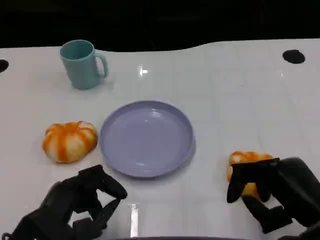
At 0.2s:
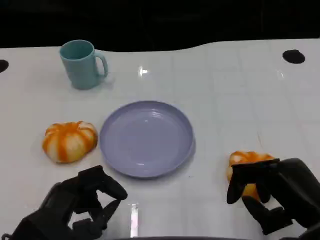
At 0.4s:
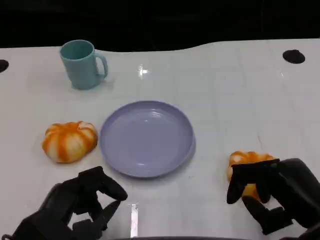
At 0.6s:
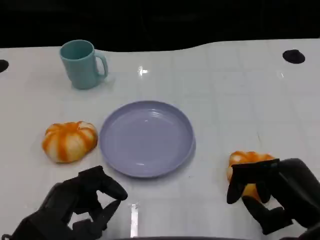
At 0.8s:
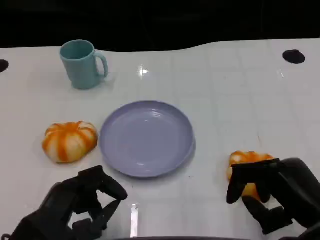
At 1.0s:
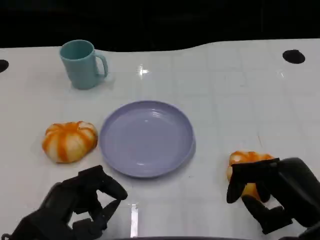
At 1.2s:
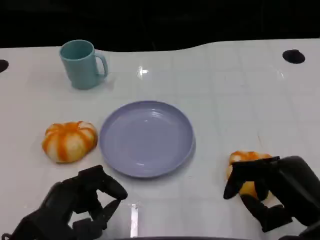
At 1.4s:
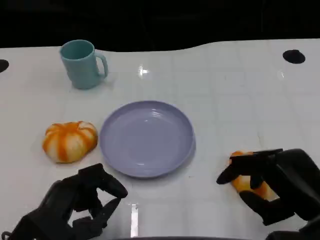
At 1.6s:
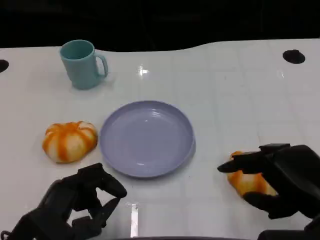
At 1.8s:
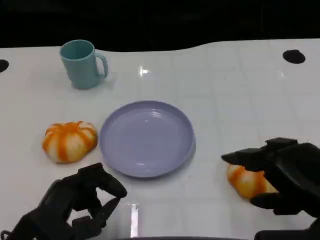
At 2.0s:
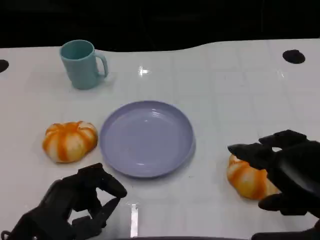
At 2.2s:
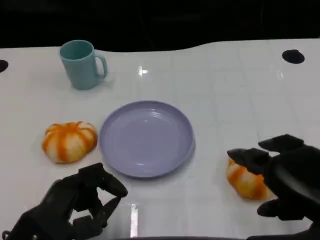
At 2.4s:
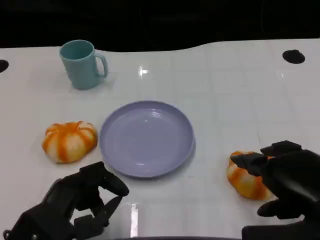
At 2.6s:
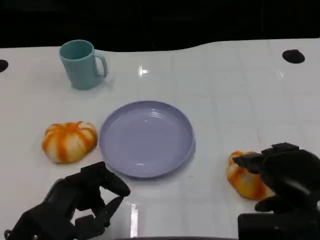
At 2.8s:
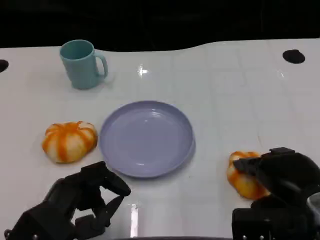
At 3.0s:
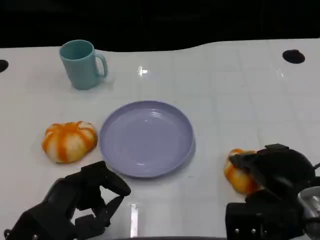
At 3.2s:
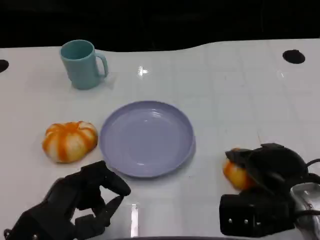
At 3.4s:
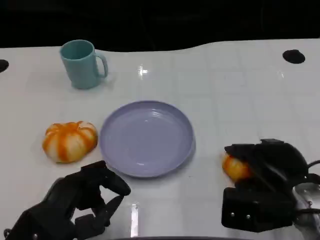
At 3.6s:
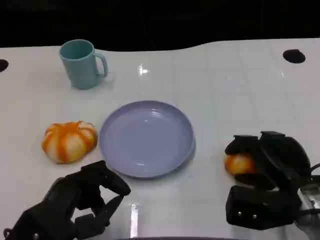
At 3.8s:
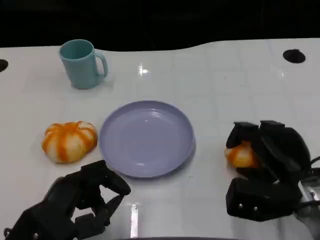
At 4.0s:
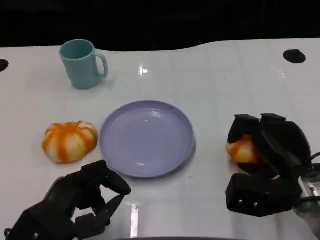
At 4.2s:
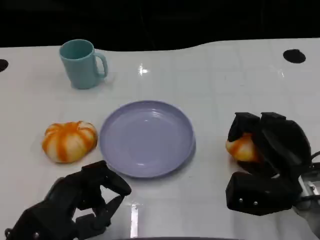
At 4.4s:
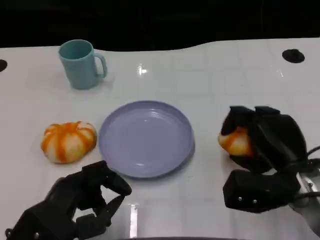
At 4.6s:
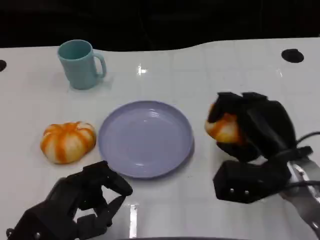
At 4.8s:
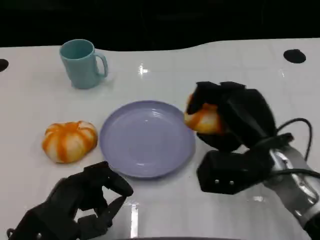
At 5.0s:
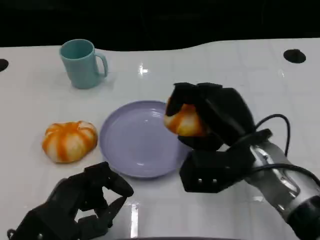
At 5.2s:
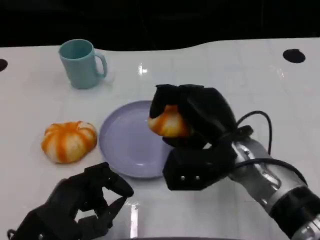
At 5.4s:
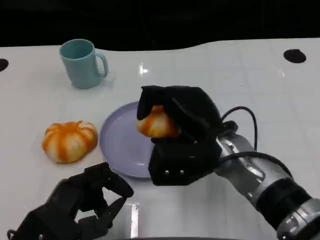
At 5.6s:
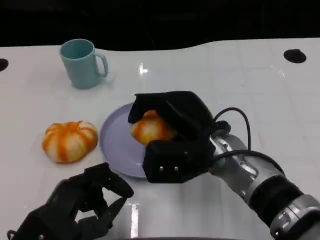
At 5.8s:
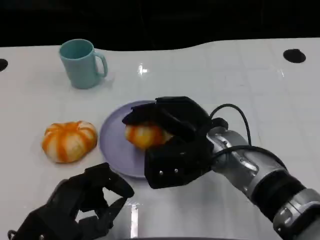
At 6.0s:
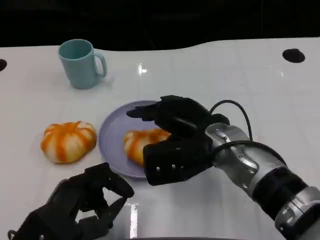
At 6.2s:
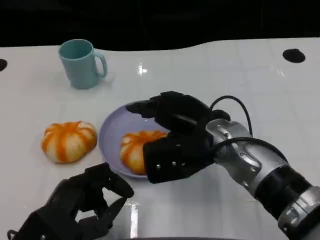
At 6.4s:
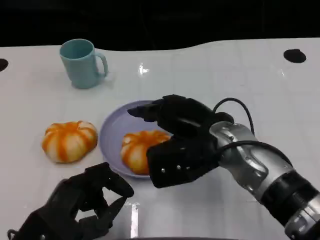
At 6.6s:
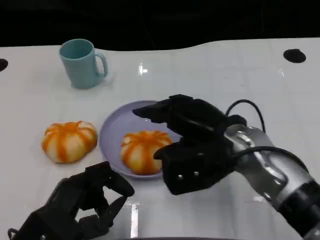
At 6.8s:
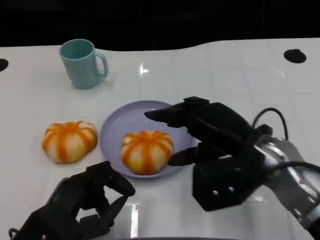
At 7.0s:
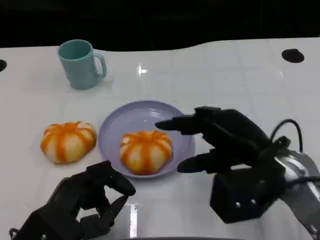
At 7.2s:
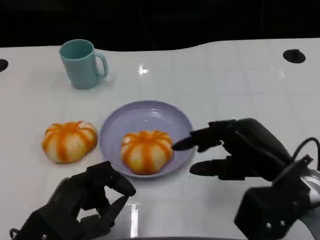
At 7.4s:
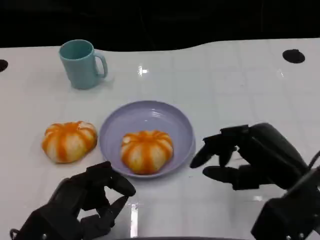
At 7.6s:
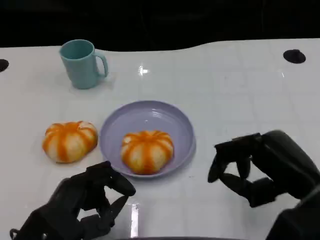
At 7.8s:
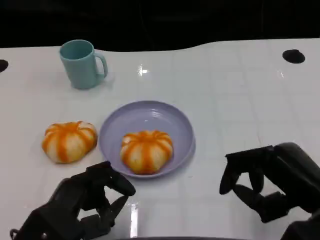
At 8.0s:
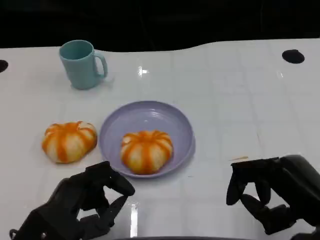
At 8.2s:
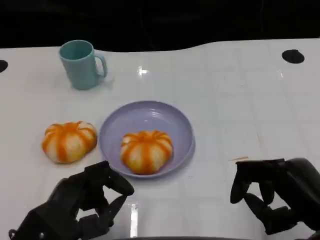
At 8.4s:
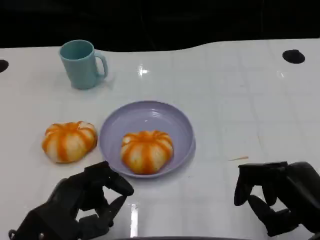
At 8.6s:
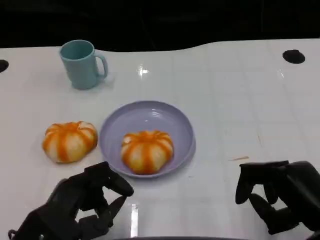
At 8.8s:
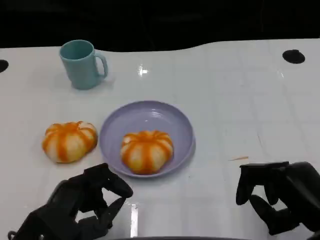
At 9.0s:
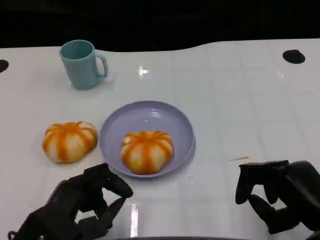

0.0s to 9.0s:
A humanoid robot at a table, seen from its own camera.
Task of the whole recording: Grasp the bread from the table and place it into the plate.
0.0s to 1.6s: The hands make only small movements.
1.6s to 3.0s: The right hand moves forward, approximately 5 cm.
4.4s to 6.0s: The right hand travels to the left by some 10 cm.
6.0s to 7.6s: The right hand travels to the right and backward by roughly 15 cm.
7.6s to 9.0s: The right hand changes place by approximately 5 cm.

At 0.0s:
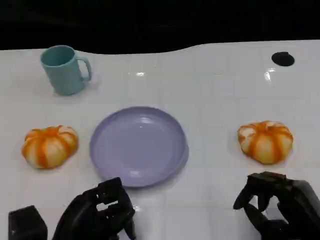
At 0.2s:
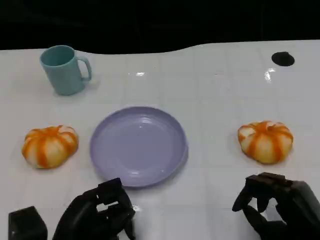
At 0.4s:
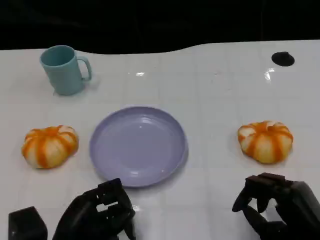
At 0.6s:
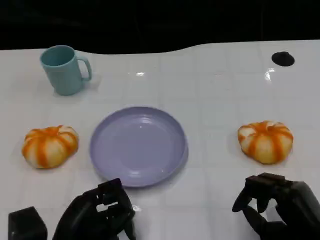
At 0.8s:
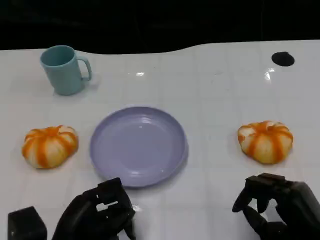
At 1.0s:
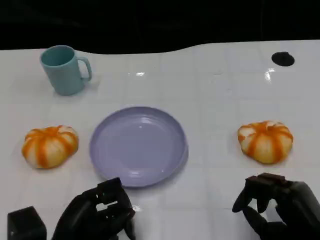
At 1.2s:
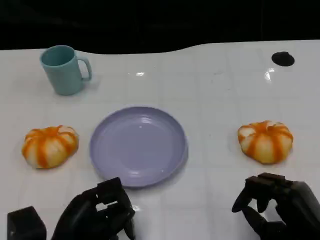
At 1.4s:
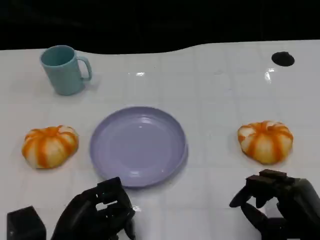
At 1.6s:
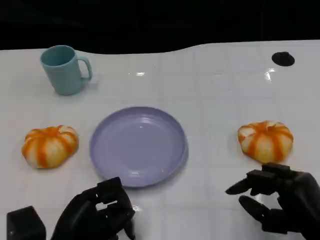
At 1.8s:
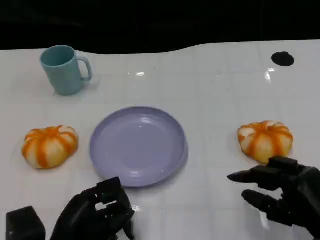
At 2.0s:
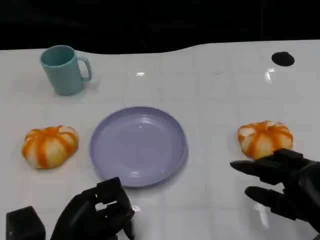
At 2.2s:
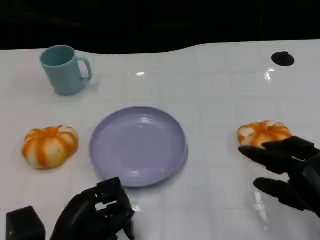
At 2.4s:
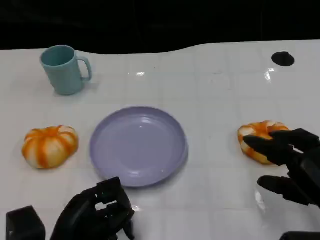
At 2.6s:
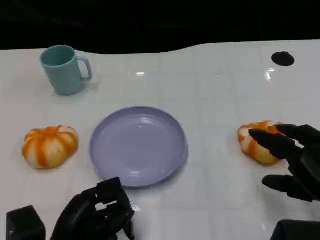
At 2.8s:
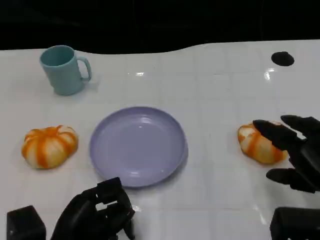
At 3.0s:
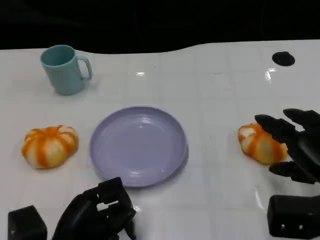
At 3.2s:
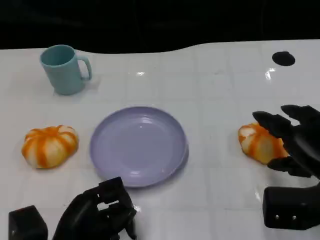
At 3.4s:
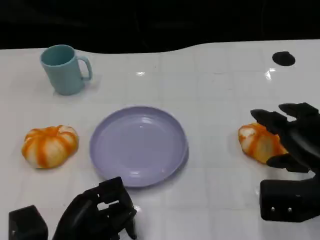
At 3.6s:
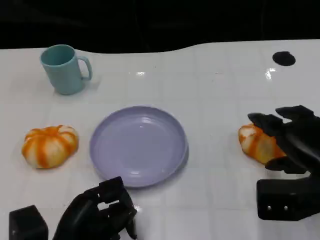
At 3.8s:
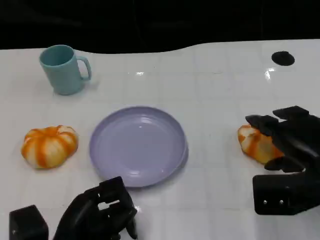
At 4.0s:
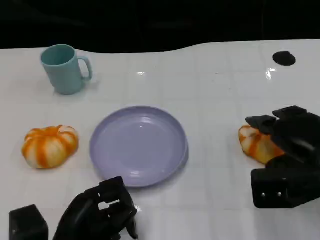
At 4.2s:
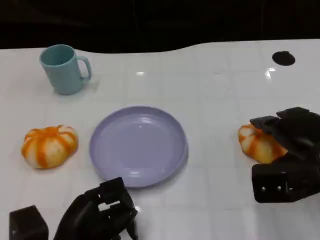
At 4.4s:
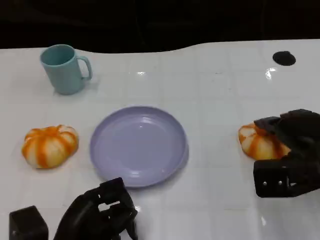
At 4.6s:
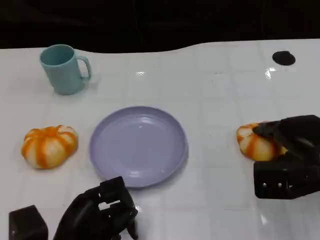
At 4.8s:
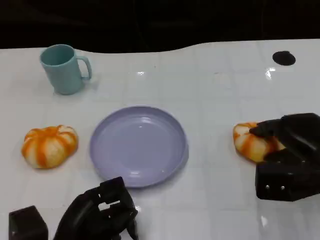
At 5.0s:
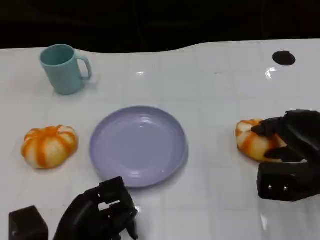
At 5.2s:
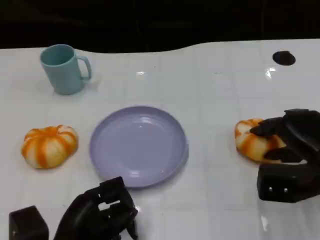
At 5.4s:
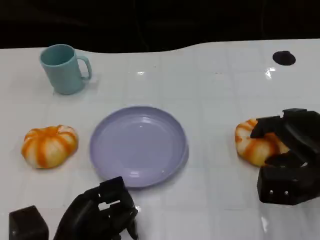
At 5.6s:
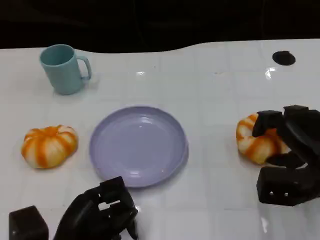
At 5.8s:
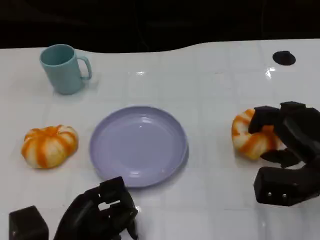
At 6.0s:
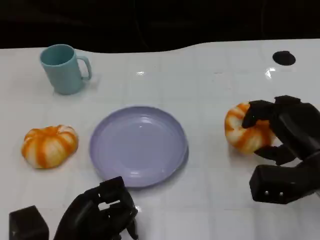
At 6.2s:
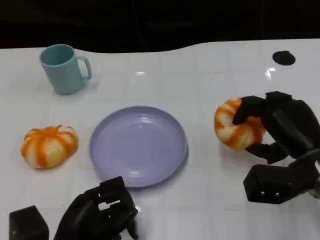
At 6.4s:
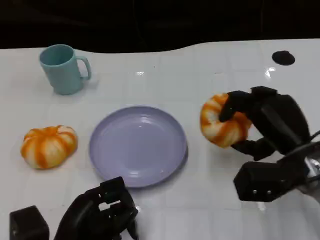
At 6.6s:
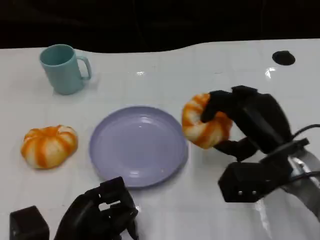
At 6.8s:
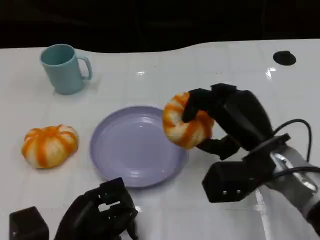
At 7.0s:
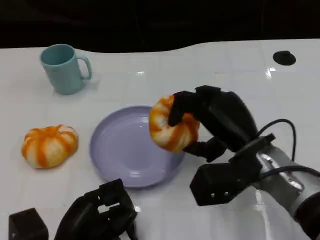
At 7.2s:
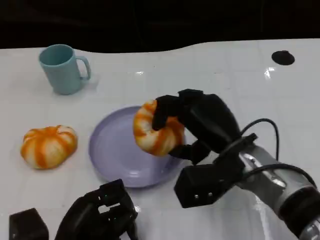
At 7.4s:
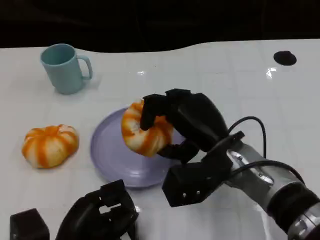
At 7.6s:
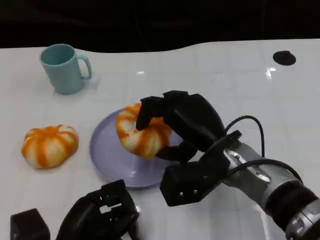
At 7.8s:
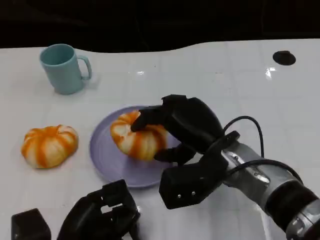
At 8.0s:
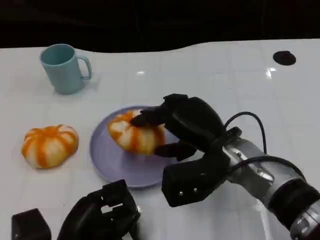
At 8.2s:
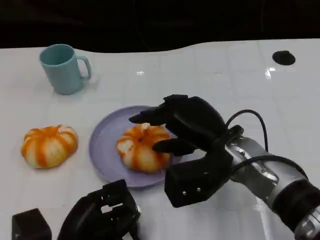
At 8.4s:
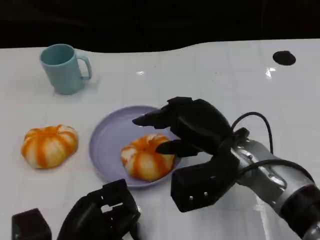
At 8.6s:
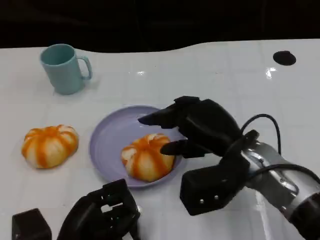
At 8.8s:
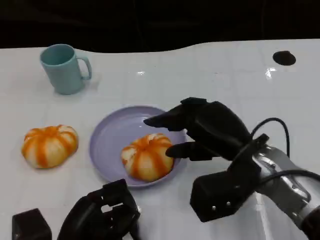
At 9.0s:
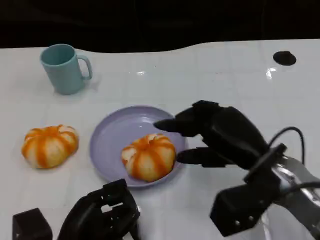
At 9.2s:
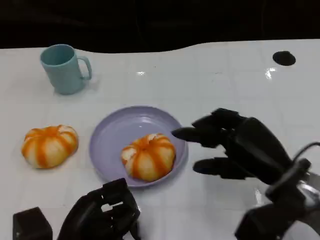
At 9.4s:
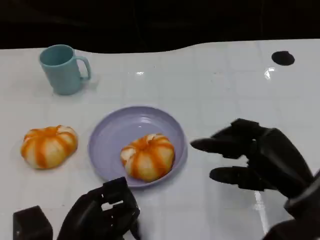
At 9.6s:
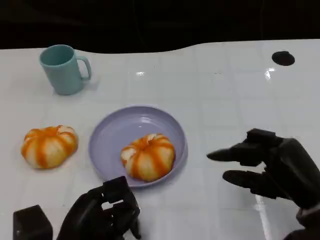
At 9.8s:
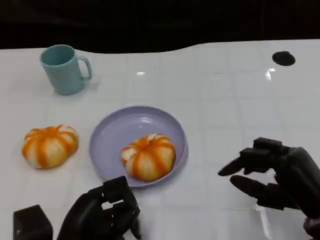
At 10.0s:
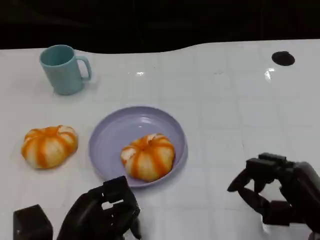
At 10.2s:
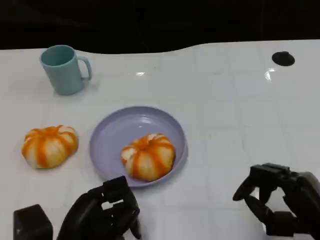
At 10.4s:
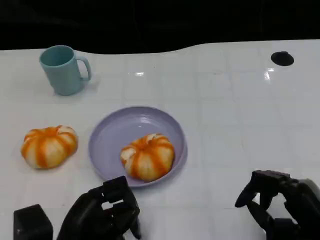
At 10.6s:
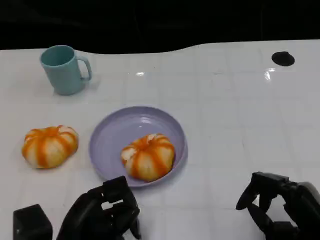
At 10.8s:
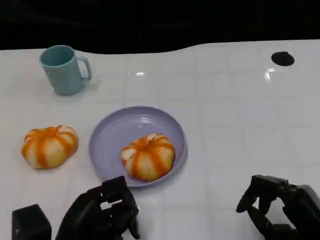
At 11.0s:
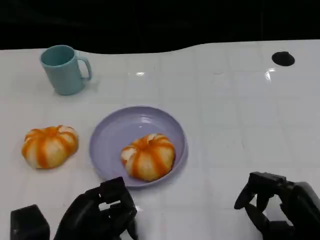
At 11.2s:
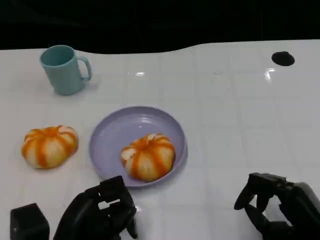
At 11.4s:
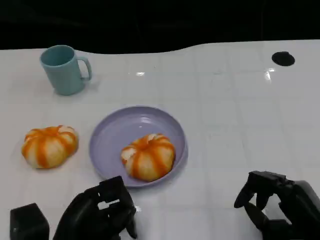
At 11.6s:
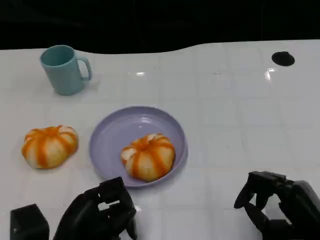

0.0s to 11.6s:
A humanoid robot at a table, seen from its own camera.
Task of the whole recording: Grasp the bread from the table and place it into the plate.
0.0s to 1.4s: The two hands keep their place.
1.4s to 2.8s: The right hand goes approximately 5 cm upward.
2.8s to 4.4s: The right hand travels forward by roughly 5 cm.
5.8s to 7.2s: The right hand moves to the left, roughly 15 cm.
7.2s to 8.8s: The hands stay close to where they were, moving slightly.
8.8s to 10.2s: The right hand goes roughly 15 cm to the right, backward and downward.
10.2s to 11.6s: The hands stay close to where they were, moving slightly.

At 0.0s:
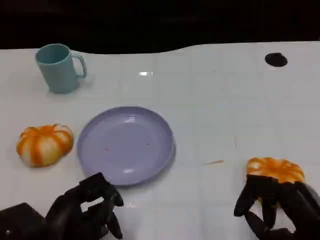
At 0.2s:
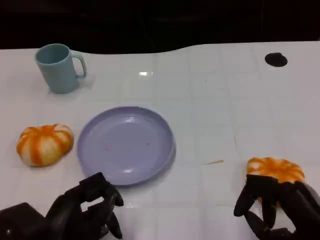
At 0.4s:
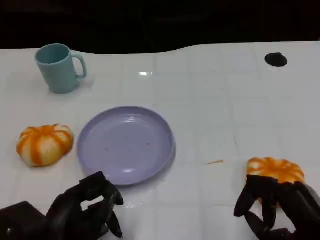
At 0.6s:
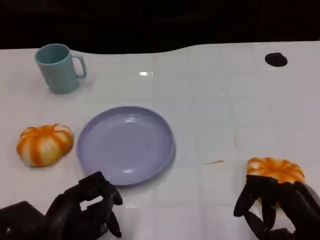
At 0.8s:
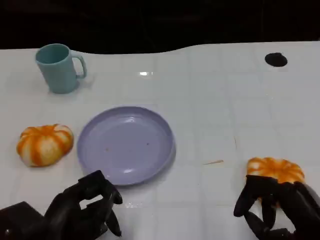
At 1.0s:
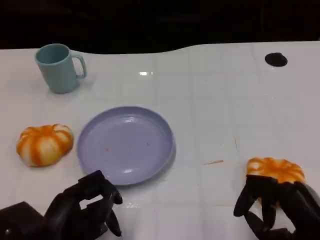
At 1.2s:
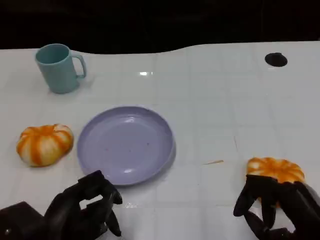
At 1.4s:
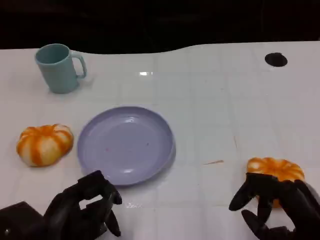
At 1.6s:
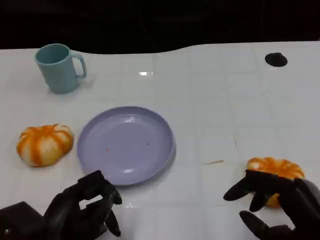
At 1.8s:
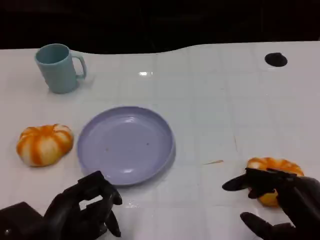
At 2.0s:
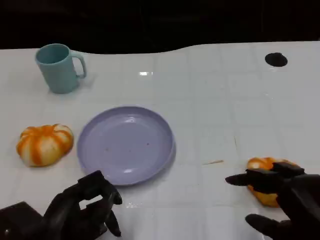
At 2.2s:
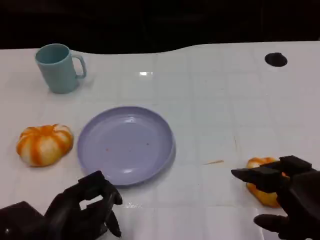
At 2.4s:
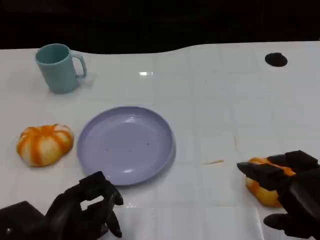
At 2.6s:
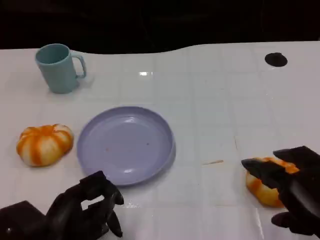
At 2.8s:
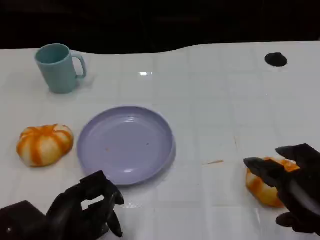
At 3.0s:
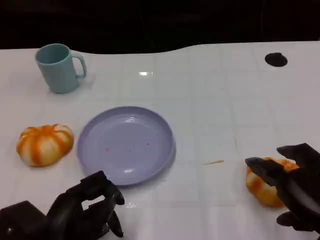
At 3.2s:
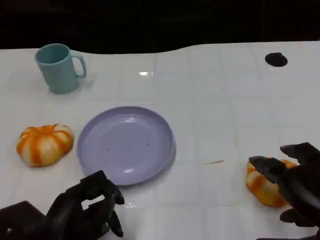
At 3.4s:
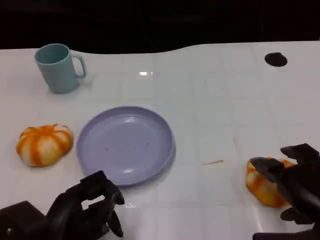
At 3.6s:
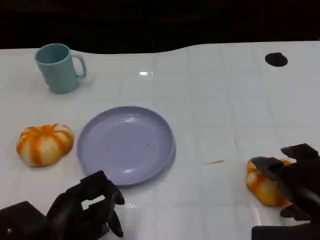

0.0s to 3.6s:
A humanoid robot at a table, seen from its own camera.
Task of the whole recording: Grasp the bread from the table and place it into the plate.
0.0s to 1.8s: There are only small adjustments of the hands.
